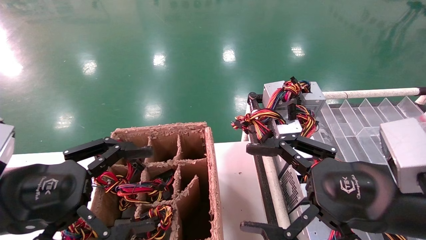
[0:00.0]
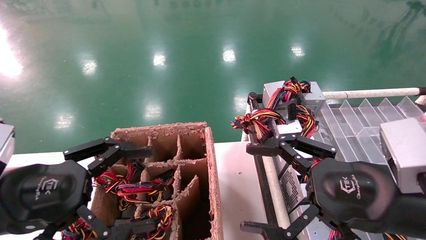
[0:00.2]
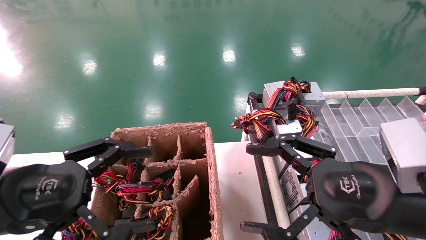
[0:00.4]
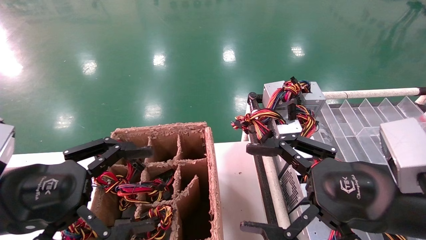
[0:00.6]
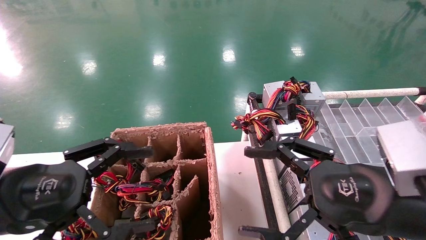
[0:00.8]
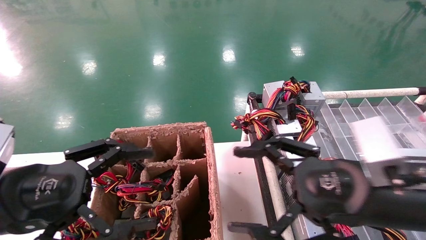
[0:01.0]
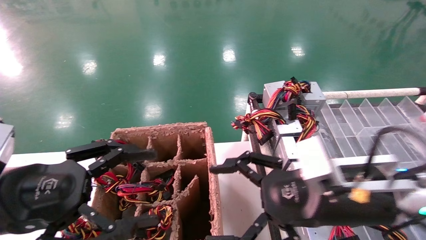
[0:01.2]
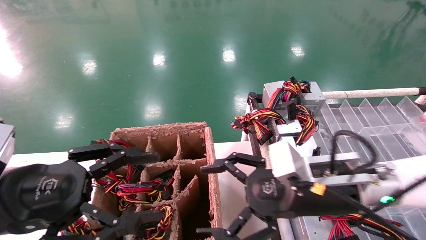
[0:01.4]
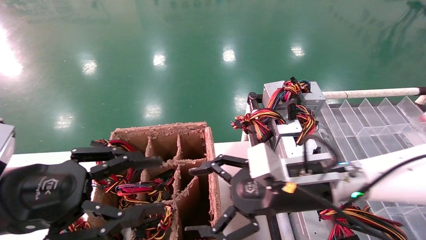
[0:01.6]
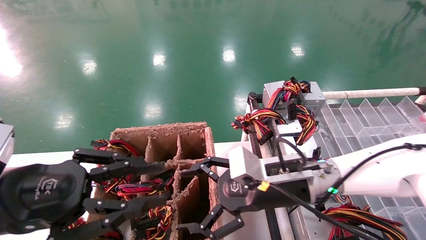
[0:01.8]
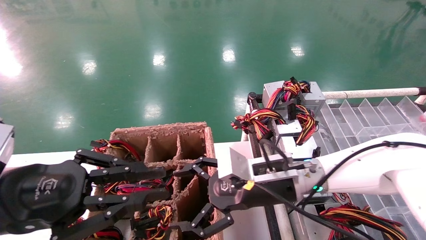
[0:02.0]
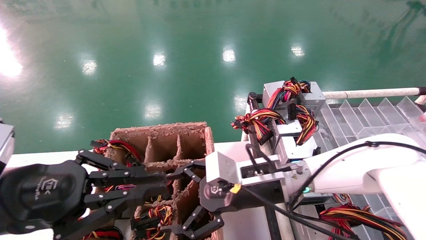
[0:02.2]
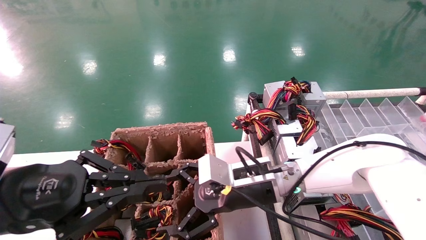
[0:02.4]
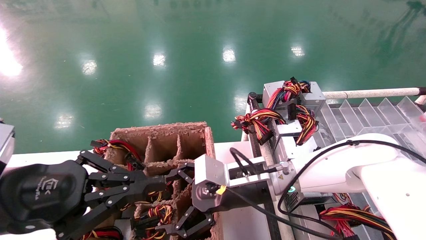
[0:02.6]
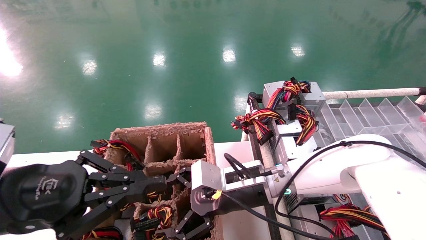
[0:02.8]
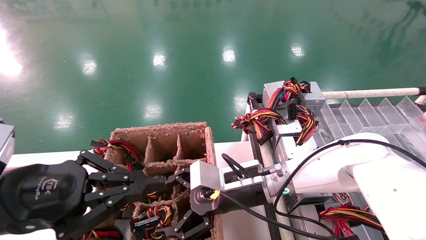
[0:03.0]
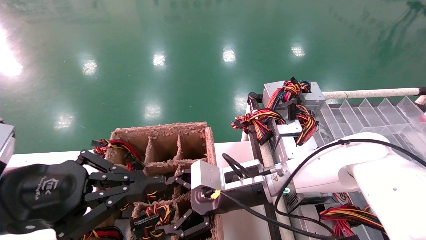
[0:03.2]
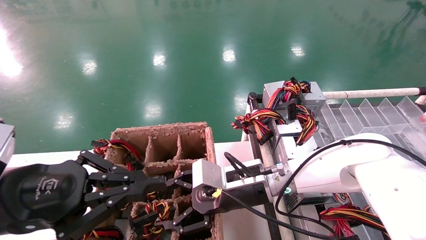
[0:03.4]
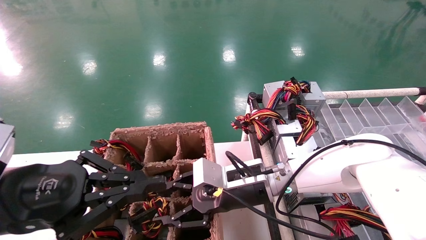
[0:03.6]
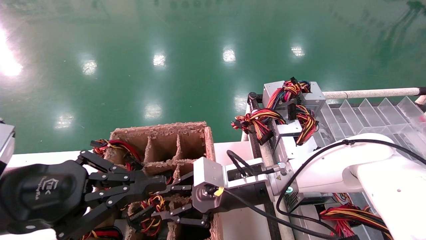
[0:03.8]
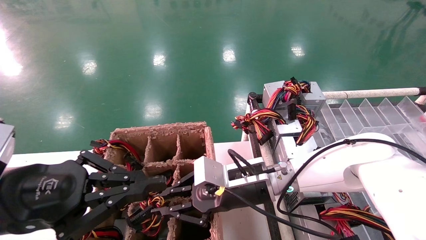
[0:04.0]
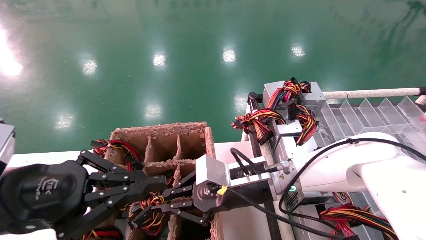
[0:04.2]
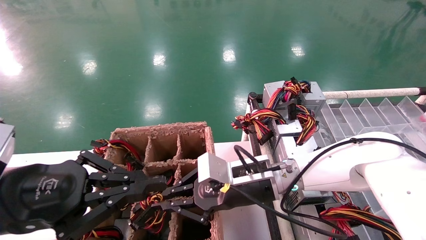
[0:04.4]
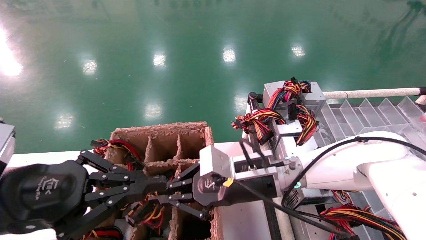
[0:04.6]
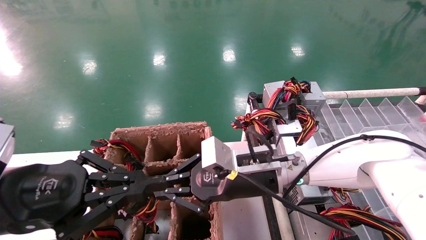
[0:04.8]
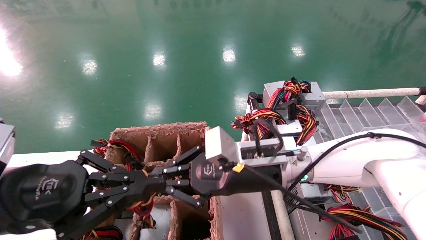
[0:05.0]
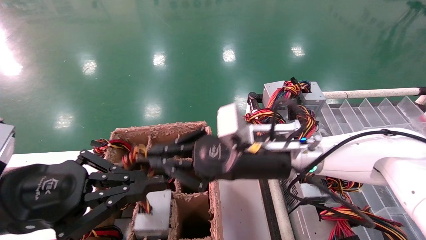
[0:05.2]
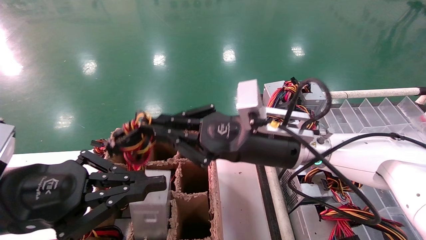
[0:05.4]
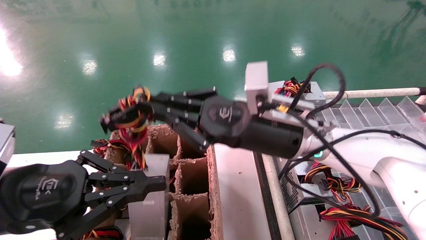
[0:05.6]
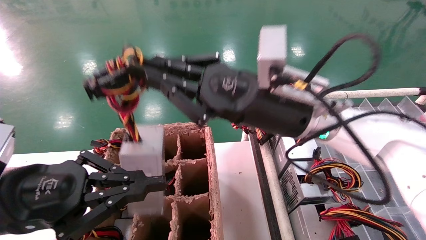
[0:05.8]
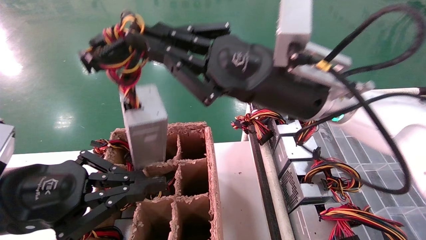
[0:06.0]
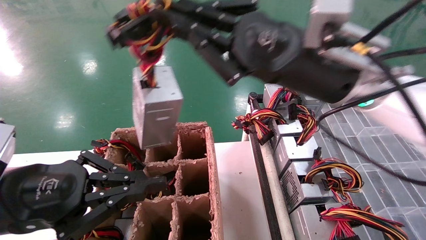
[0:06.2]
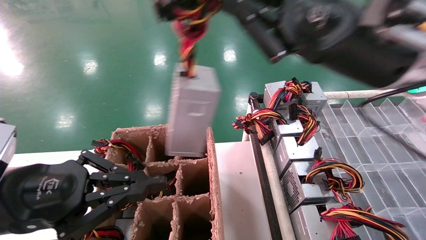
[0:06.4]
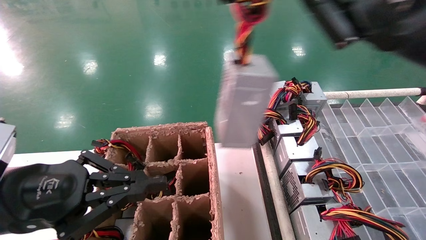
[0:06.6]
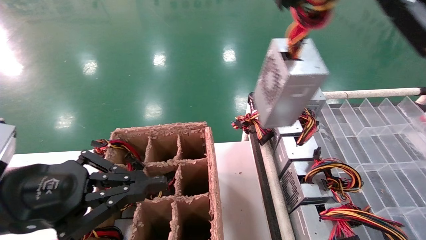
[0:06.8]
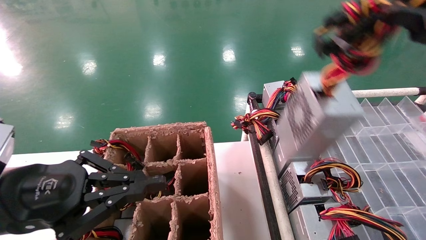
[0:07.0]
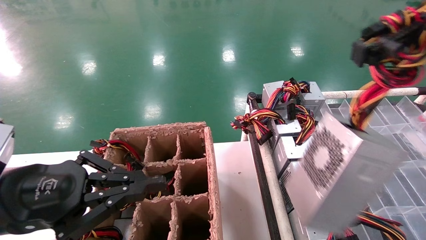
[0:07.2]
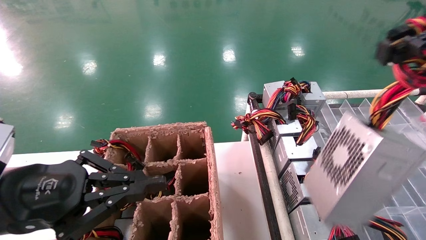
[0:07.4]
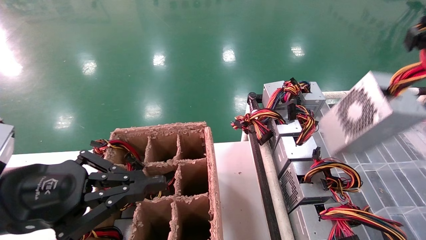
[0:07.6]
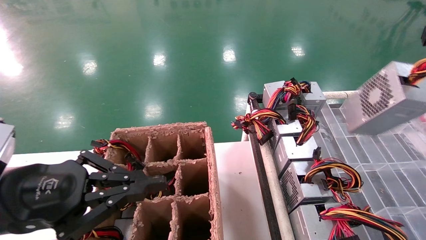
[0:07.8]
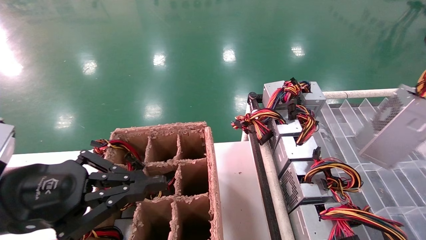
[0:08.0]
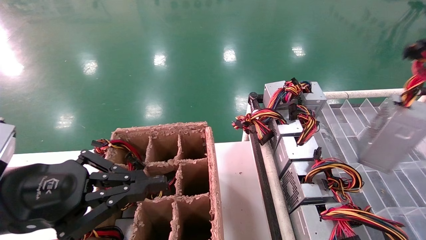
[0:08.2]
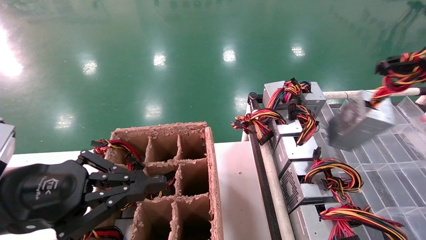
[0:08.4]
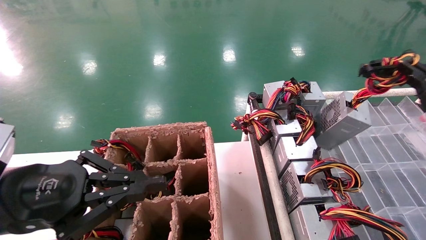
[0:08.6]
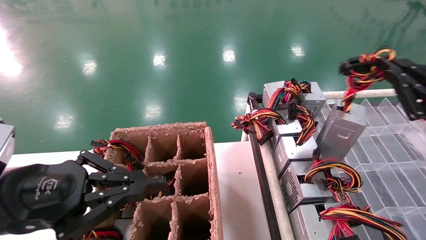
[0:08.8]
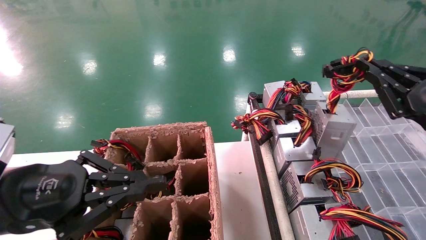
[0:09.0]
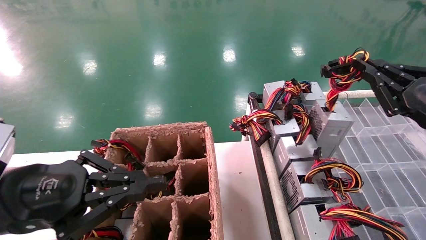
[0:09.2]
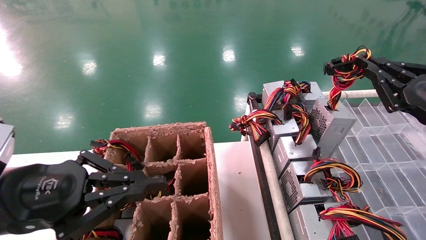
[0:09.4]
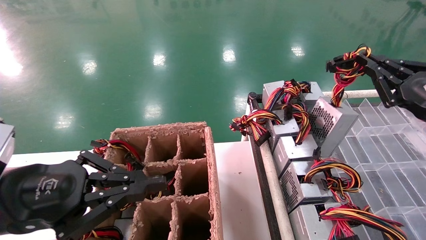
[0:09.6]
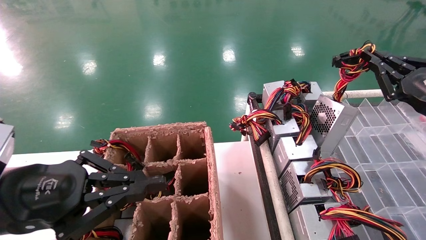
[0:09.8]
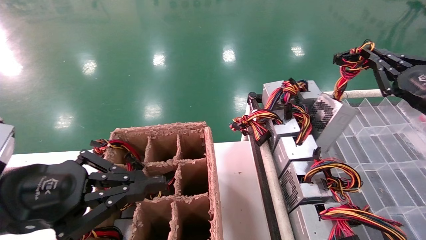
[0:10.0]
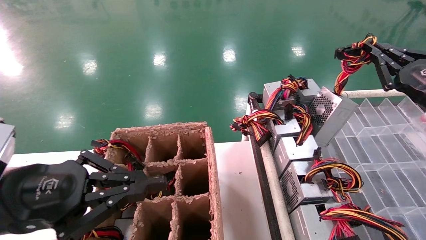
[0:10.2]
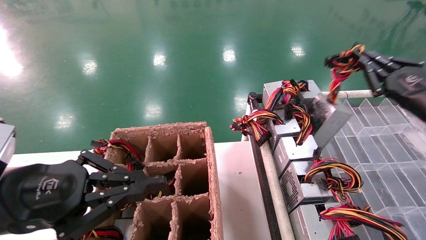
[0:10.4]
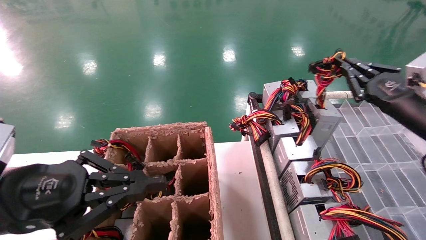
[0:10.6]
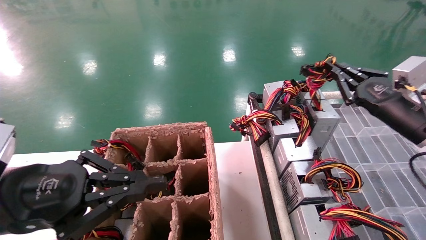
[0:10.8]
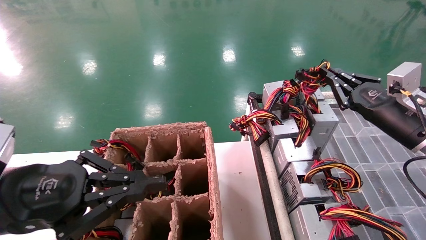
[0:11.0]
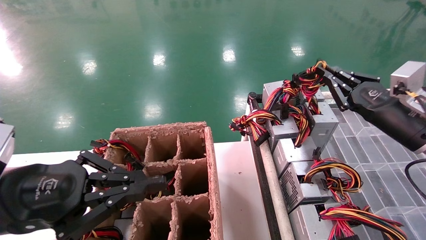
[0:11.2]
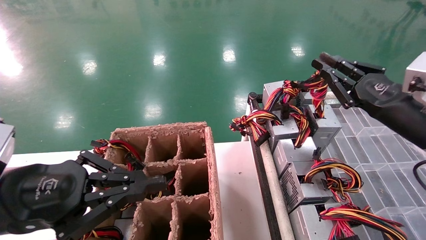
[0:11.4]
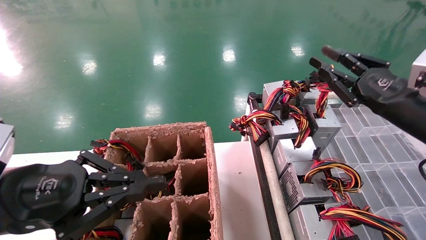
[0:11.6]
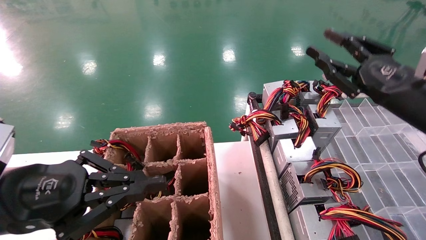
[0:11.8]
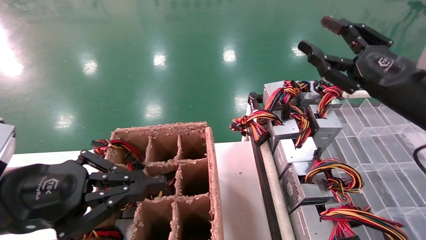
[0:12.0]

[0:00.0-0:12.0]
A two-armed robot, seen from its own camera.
Step, 0:01.2 to 0:04.6: Grab the main unit power supply from the containment box.
Step, 0:04.8 to 0:11.4: Place the main unit power supply in the designated area.
0:00.0 to 0:01.6: The right gripper goes approximately 15 cm forward and to the left; the left gripper closes its fingers.
0:01.6 to 0:03.0: The left gripper closes up. Meanwhile the right gripper goes approximately 10 cm to the left and forward.
0:03.0 to 0:04.4: The right gripper closes up.
0:04.4 to 0:06.0: The right gripper heads upward, covering approximately 15 cm.
0:06.0 to 0:07.6: The right gripper goes some 35 cm to the right and backward.
0:07.6 to 0:09.0: The right gripper moves forward and downward, some 20 cm.
0:09.0 to 0:10.4: The right gripper moves forward, approximately 10 cm.
0:10.4 to 0:12.0: The right gripper travels to the left by approximately 10 cm, and opens its fingers.

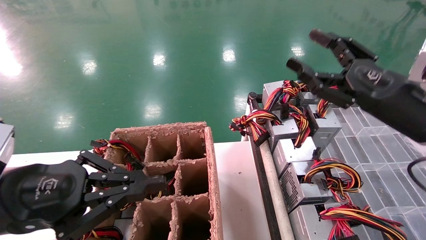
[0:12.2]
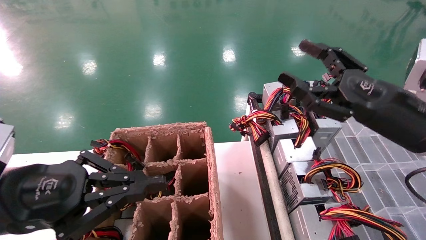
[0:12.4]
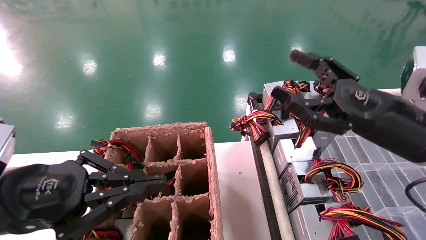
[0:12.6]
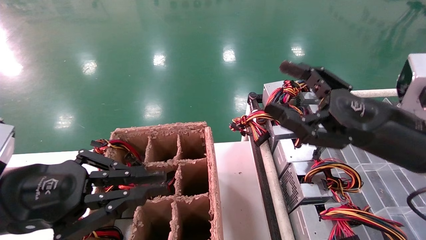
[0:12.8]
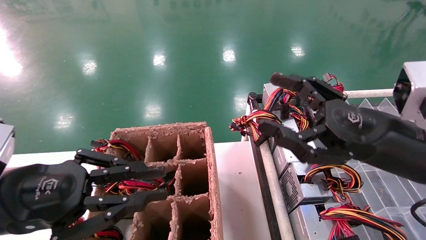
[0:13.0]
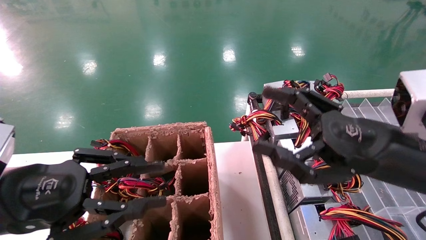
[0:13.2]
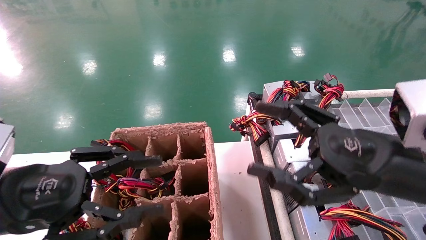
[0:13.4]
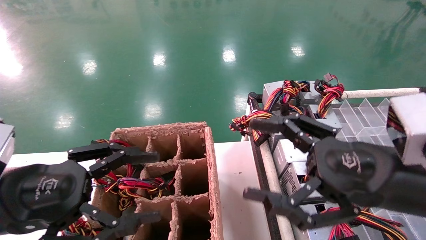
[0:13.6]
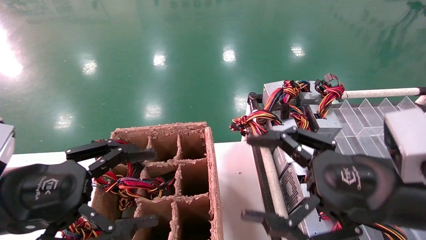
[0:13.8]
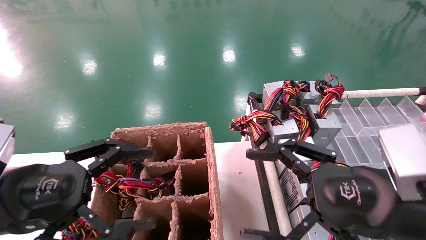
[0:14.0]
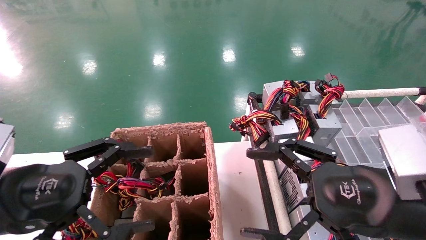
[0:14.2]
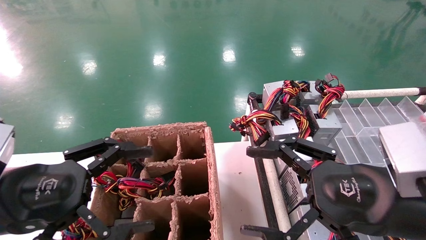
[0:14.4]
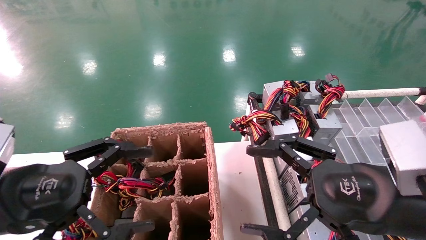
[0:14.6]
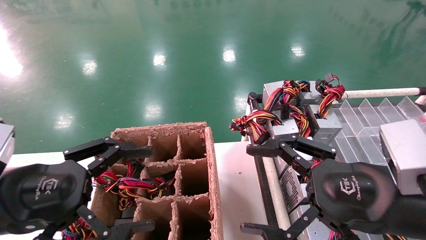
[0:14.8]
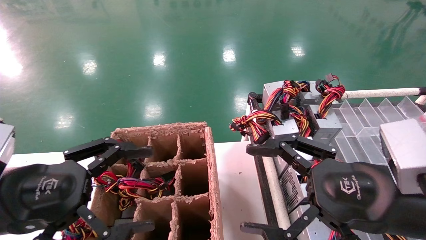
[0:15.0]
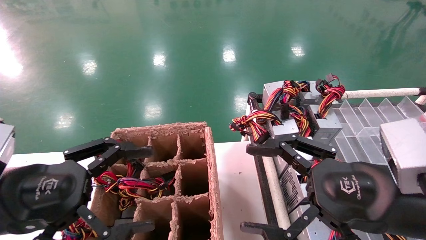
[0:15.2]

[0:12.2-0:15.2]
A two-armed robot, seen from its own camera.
0:12.2 to 0:13.8: The left gripper opens. Meanwhile the right gripper shifts about 15 cm backward and to the left.
0:13.8 to 0:15.2: Both grippers stay about where they are.

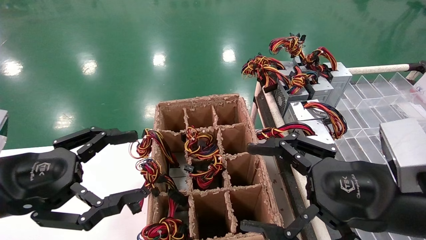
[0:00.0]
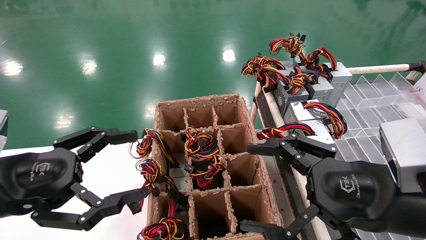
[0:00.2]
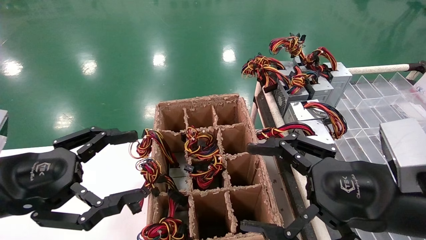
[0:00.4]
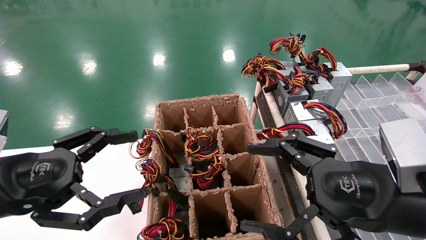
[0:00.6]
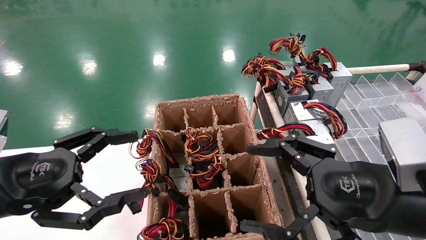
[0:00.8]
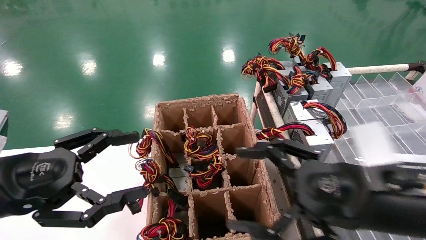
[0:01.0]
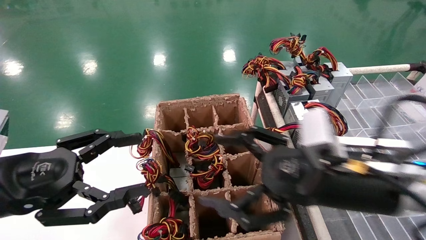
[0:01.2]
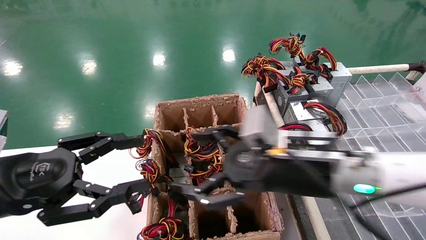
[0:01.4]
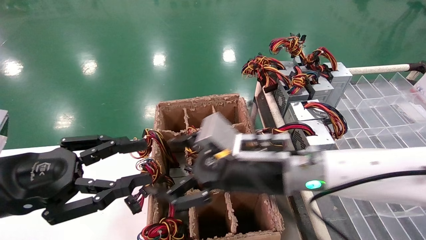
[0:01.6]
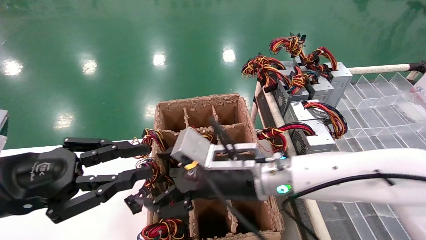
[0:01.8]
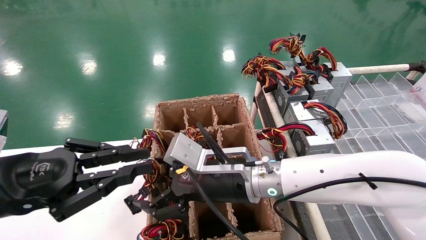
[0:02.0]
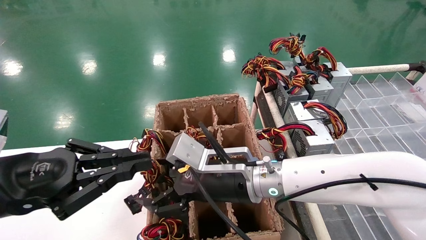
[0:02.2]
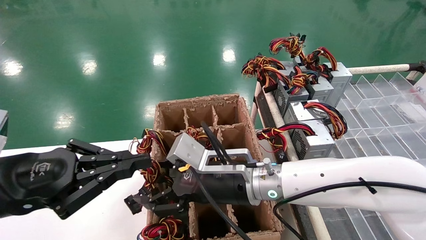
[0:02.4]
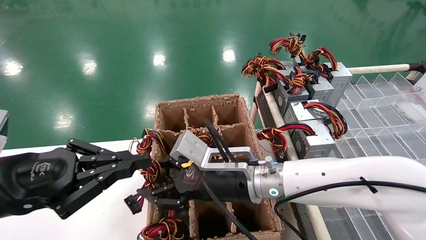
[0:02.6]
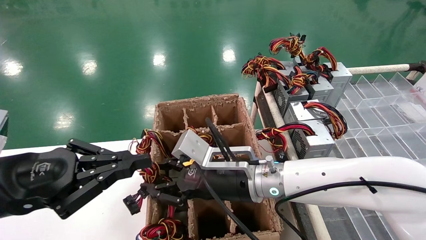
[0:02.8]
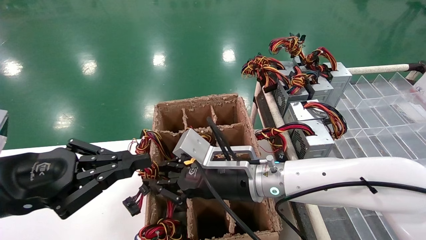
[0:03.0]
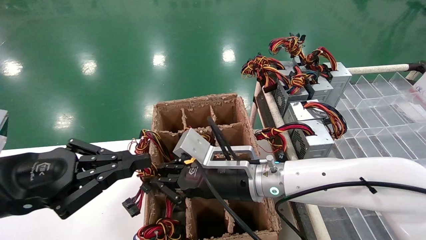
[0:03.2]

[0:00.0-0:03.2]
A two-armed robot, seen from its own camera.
0:00.0 to 0:01.6: The right gripper goes some 20 cm to the left and forward. The left gripper closes its fingers.
0:01.6 to 0:03.2: The right gripper closes. Meanwhile the left gripper closes.
